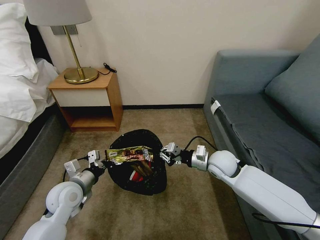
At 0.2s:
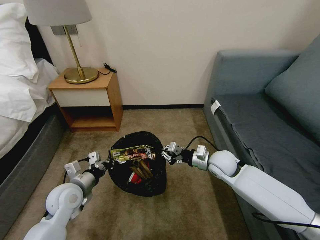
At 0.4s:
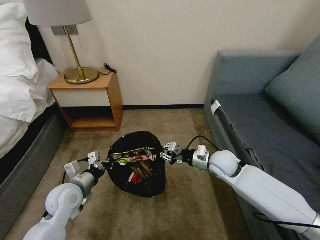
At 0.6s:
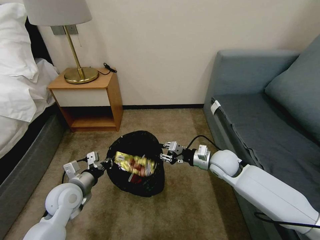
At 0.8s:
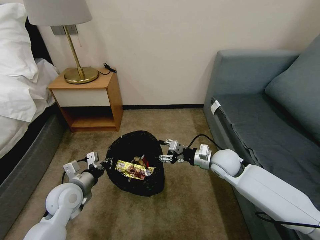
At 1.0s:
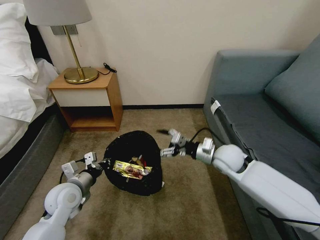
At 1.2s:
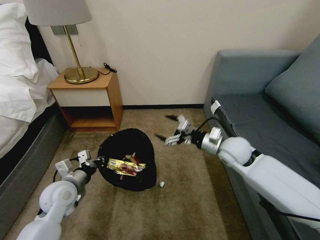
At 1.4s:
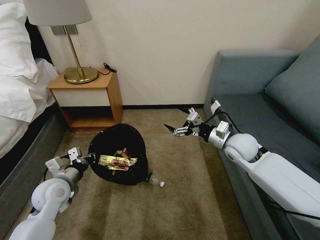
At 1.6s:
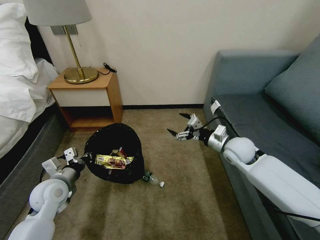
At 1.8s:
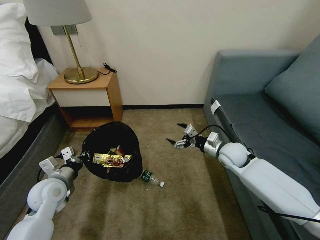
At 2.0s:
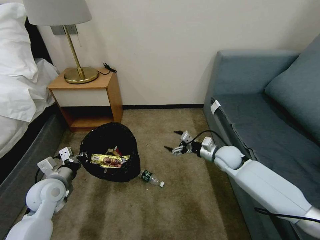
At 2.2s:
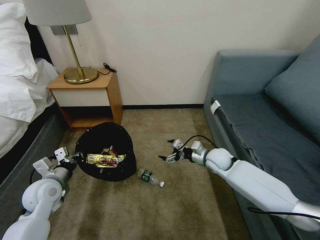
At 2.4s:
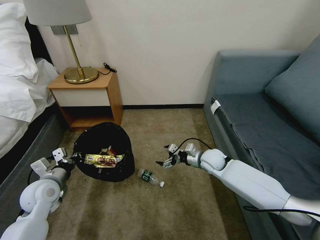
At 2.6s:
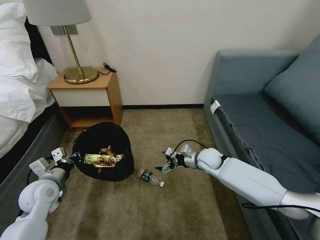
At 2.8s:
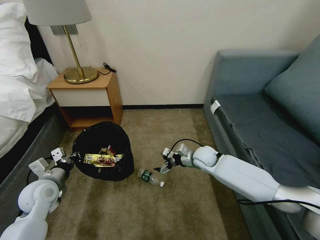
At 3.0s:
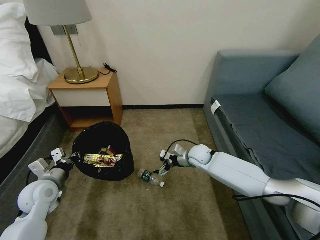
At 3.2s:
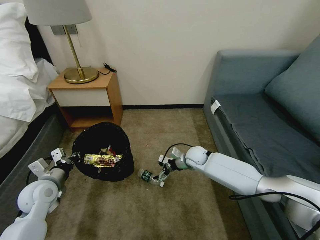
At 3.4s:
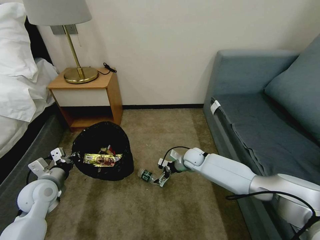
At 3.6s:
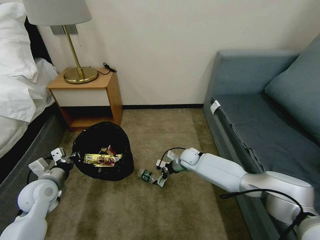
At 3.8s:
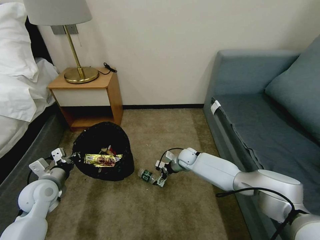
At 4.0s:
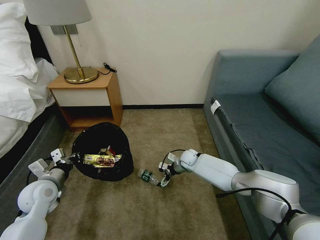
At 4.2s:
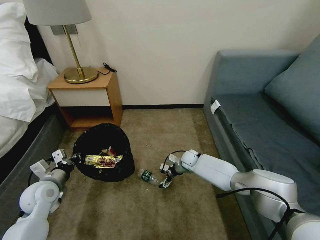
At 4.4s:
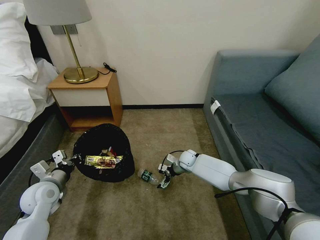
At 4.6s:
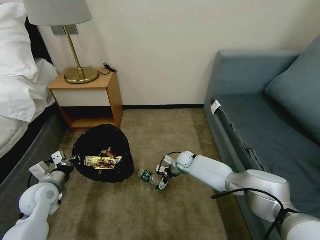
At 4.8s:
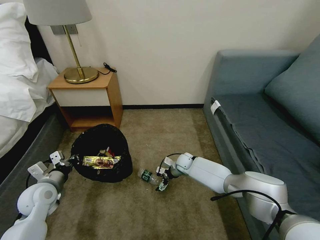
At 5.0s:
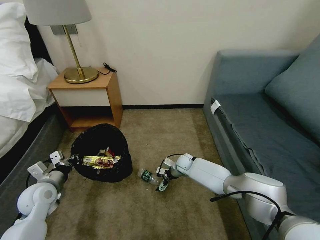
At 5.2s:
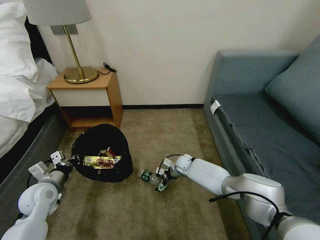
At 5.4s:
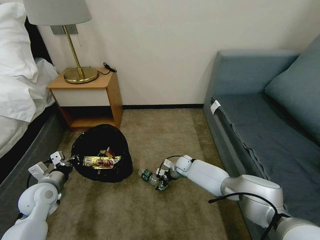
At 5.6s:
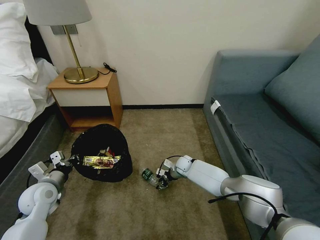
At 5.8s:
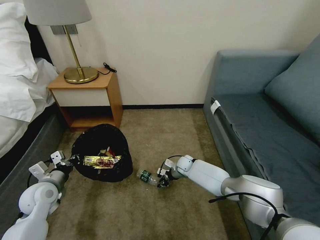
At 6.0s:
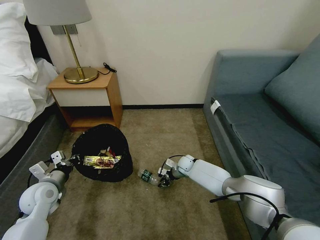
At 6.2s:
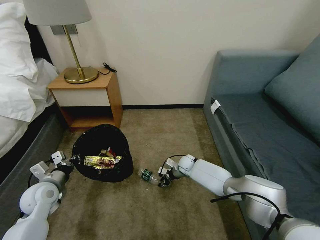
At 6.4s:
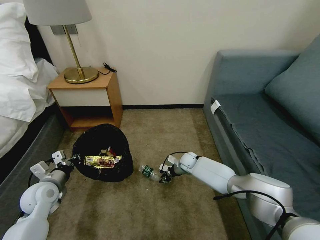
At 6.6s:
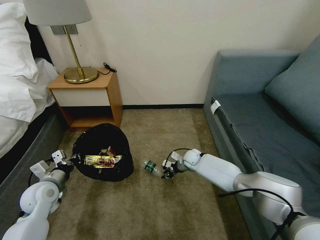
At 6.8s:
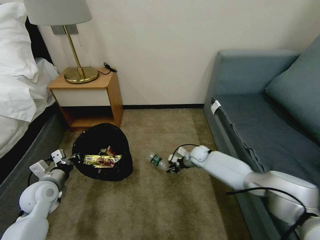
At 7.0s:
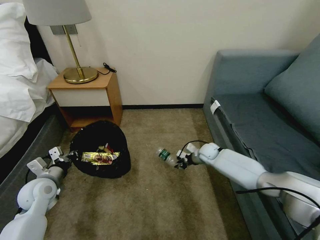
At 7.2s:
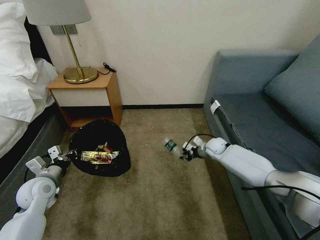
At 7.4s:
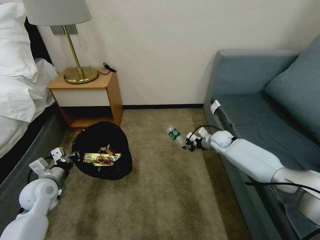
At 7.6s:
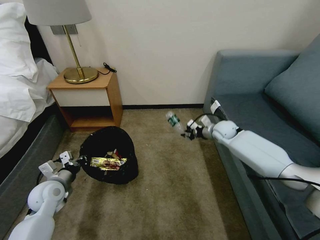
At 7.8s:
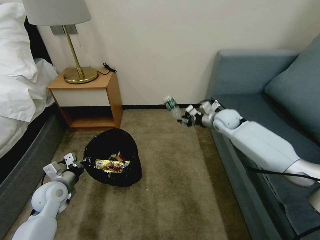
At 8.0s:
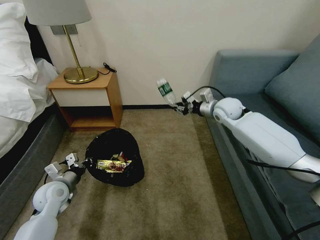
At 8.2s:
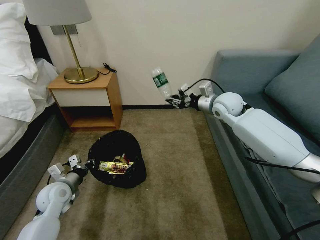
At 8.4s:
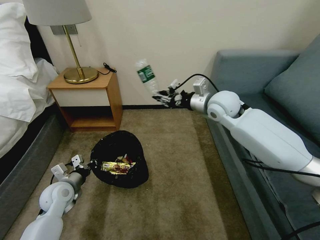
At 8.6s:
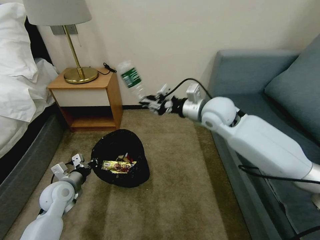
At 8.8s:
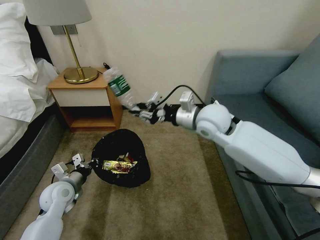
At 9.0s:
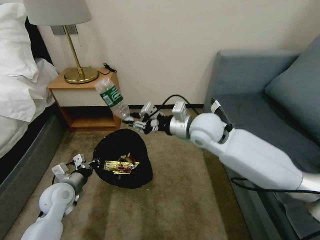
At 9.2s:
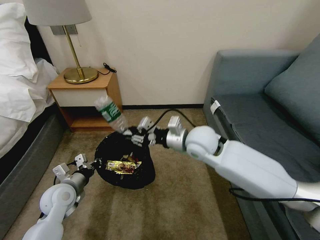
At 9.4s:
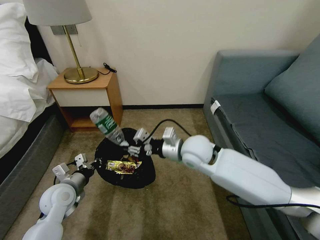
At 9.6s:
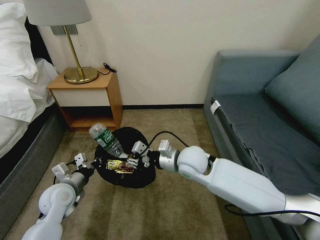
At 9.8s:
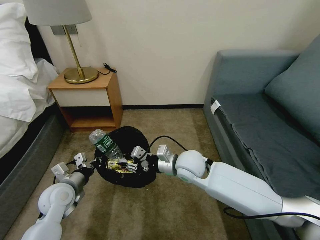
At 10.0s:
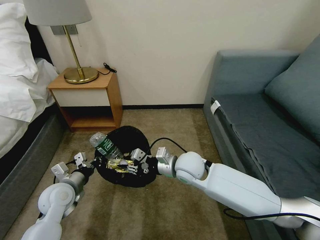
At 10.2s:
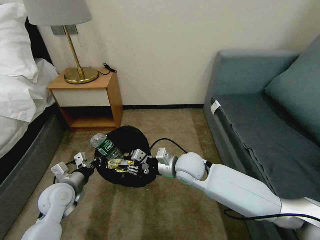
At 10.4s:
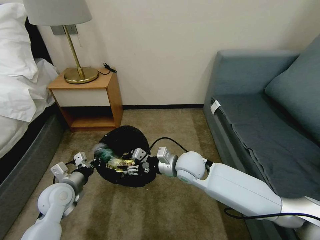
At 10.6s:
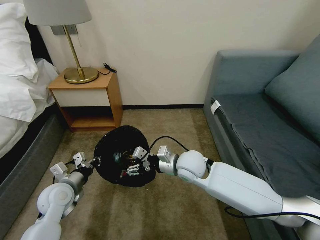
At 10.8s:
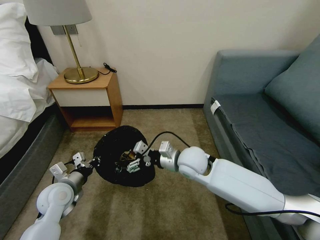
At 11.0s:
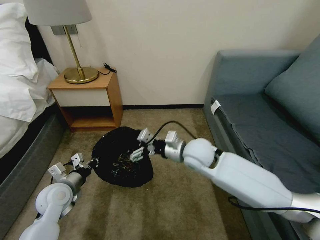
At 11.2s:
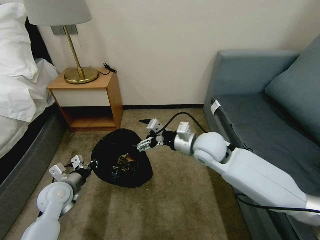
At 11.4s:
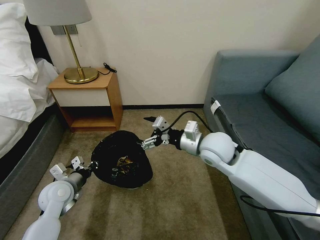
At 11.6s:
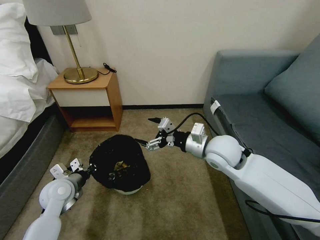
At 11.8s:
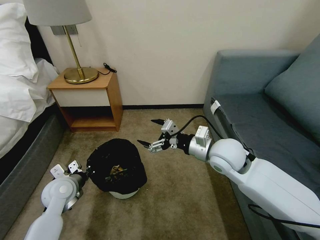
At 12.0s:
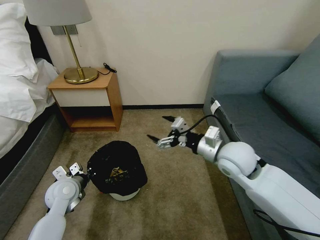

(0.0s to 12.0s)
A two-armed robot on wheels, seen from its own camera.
Task of the whole recording: Pick up the trash bin, then pick up the garbage on the floor and place it into the trash bin.
0.0s - 1.6s: The right gripper moves to the right, about 5 cm, and opens up.
1.6s - 3.0s: The right gripper travels downward, to the left and forward by about 15 cm.
3.0s - 4.4s: The right gripper is displaced downward by some 10 cm.
4.4s - 6.0s: The right gripper closes.
6.0s - 7.6s: The right gripper is displaced upward and to the right by roughly 25 cm.
7.6s - 9.0s: The right gripper moves to the left, upward and backward, approximately 25 cm.
9.0s - 10.4s: The right gripper goes some 15 cm downward.
10.4s - 12.0s: The right gripper moves to the right and upward, some 15 cm, and opens up.

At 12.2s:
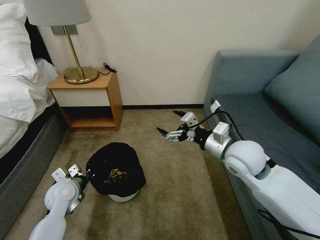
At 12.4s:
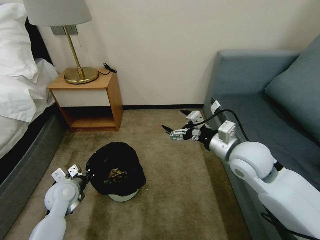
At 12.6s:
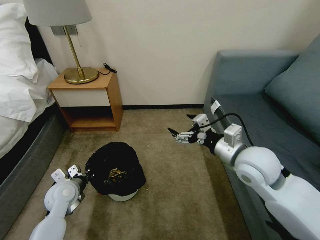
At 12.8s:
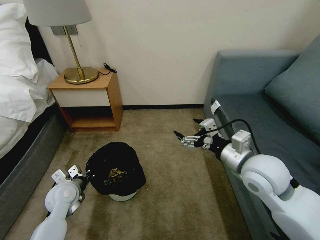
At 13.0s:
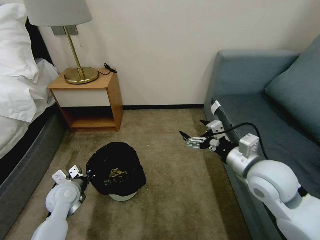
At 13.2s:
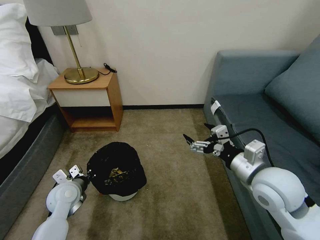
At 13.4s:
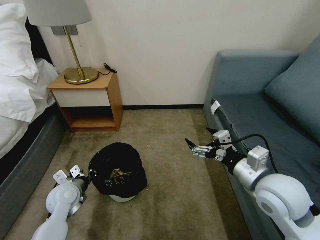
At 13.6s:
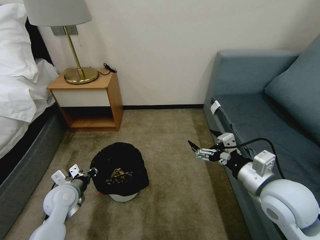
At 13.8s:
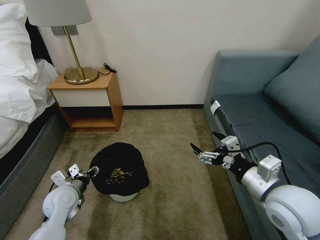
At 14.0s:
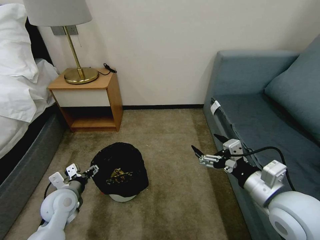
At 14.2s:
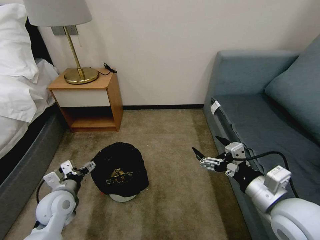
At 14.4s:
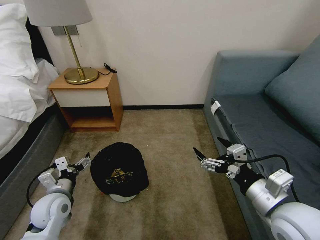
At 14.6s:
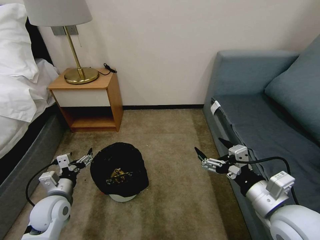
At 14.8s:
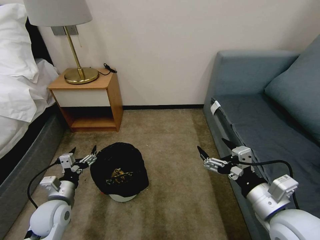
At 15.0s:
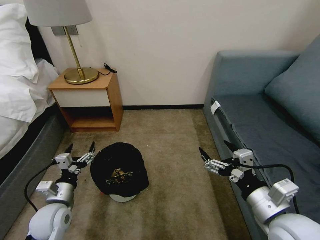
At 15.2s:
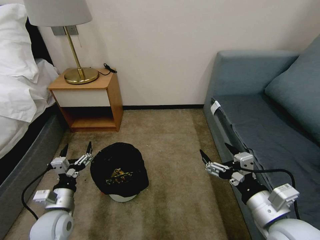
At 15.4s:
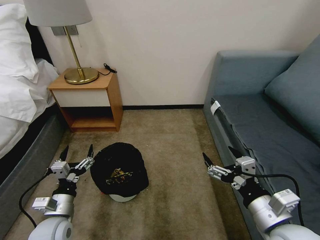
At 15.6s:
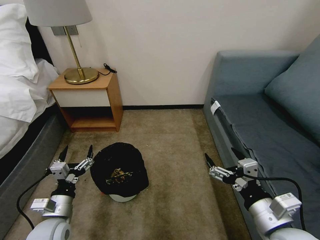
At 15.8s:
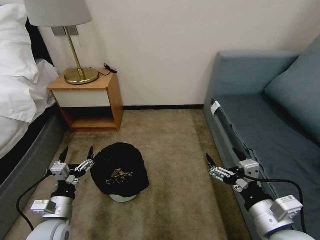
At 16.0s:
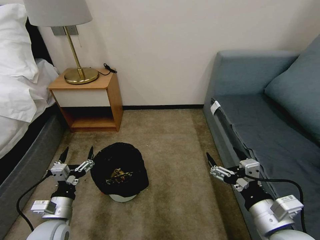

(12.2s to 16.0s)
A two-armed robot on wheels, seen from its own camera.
Task of the whole recording: Pick up the trash bin, then pick up the garbage on the floor and place it into the trash bin.
12.2s - 13.4s: The right gripper heads backward, covering roughly 10 cm.
13.4s - 14.8s: The two grippers go about 5 cm backward. The left gripper opens up.
14.8s - 16.0s: The left gripper travels backward by approximately 5 cm.

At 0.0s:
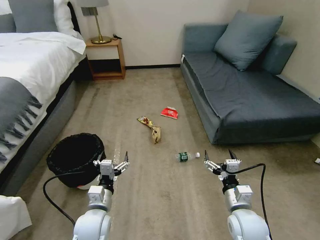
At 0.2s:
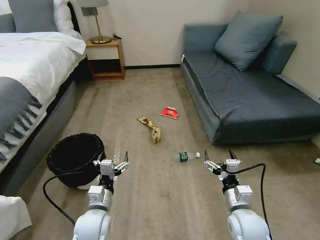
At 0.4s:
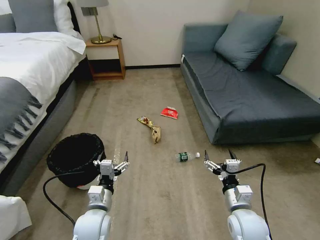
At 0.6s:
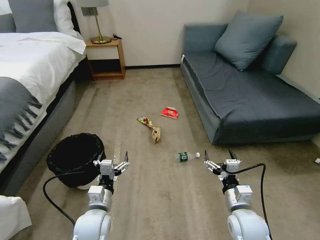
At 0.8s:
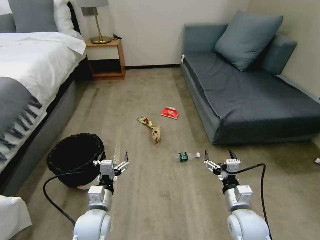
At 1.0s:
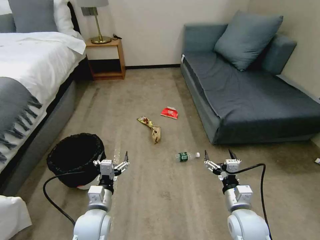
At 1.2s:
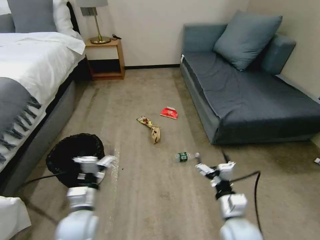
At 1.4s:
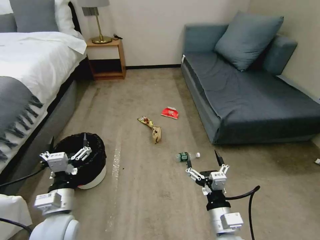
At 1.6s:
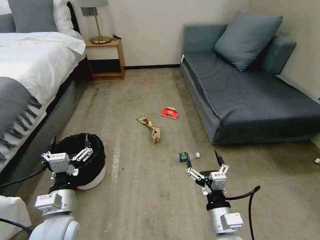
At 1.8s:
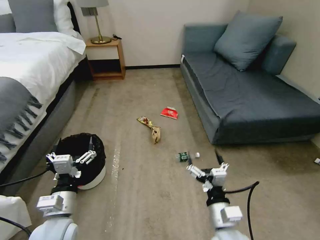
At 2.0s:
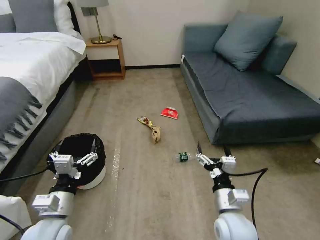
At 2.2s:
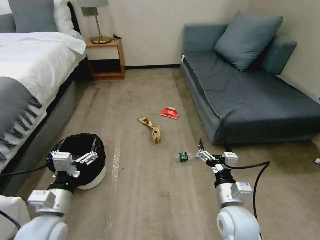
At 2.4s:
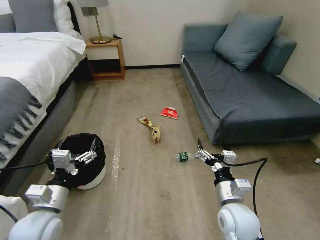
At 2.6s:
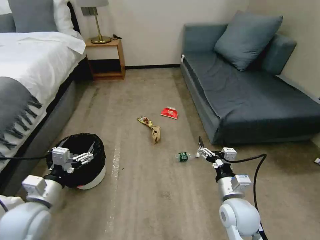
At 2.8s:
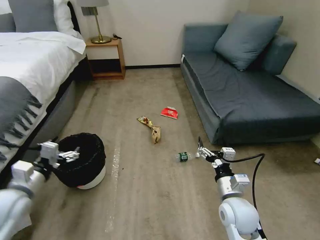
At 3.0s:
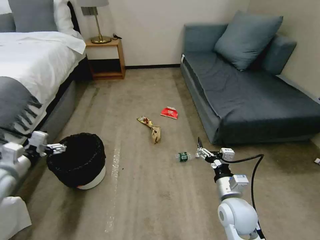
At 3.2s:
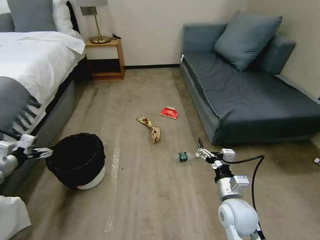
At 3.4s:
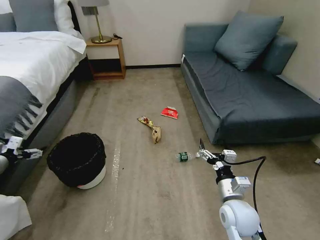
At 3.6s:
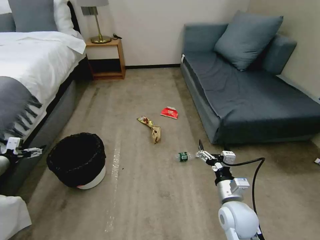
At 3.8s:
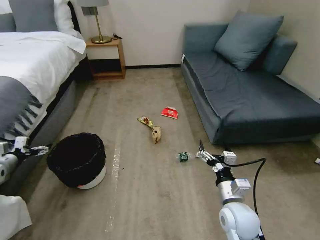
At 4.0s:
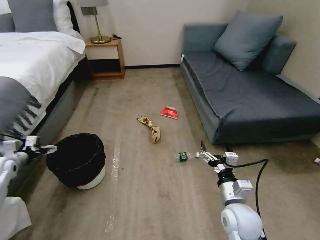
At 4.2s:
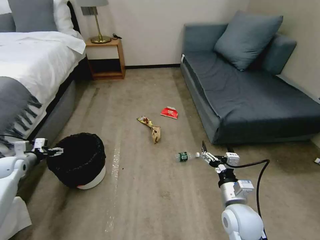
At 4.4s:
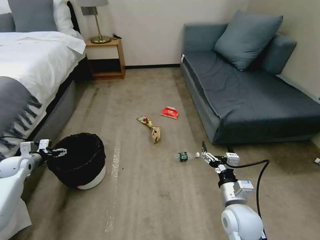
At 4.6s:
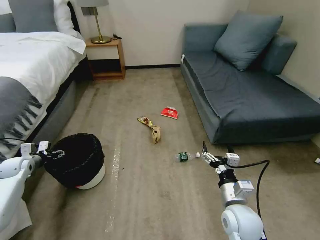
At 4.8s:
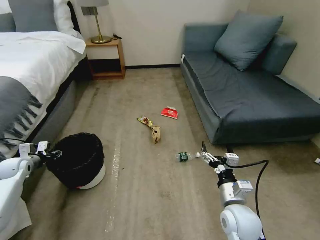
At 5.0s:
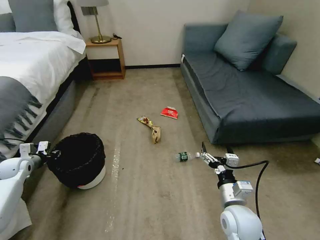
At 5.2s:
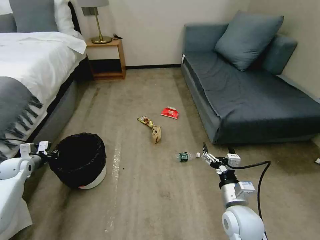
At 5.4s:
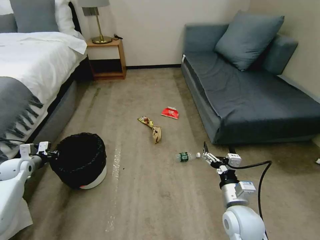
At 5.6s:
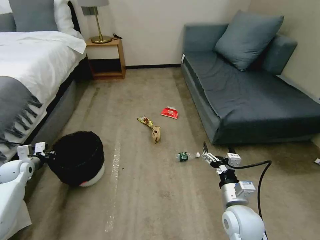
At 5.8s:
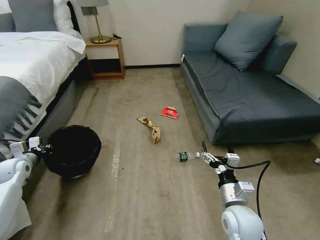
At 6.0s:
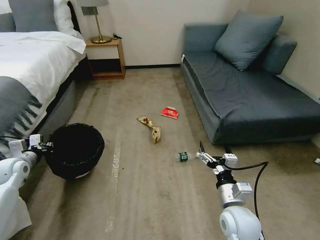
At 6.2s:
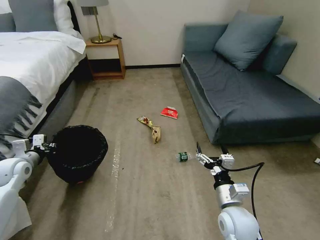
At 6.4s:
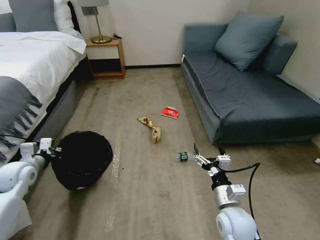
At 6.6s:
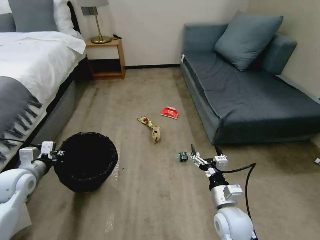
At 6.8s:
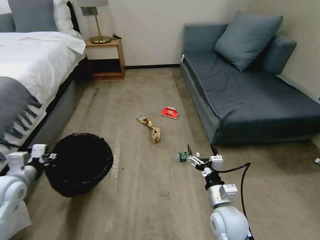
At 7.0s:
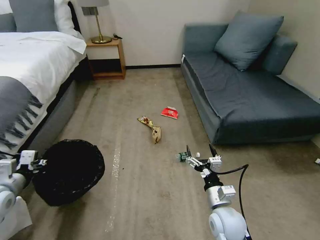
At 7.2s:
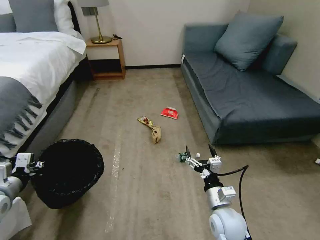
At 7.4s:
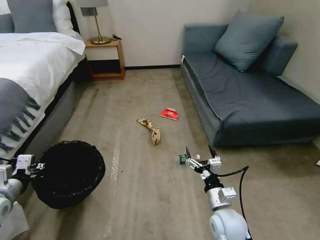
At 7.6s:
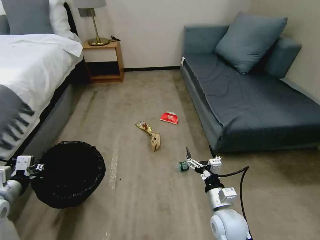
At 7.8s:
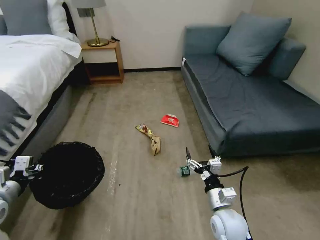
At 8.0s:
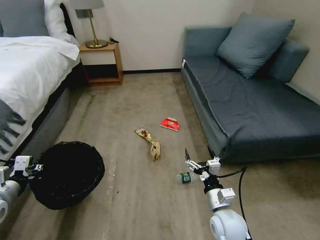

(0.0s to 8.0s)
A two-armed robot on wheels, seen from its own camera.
Task of the whole recording: Pick up the trash bin, then pick up the garbage on the floor and place it into the trash bin.
1.6s - 3.2s: The right gripper shifts roughly 10 cm forward and to the right, while the left gripper shifts about 30 cm to the left and forward.
3.2s - 4.8s: The left gripper shifts roughly 15 cm downward and forward, and closes its fingers.
4.8s - 6.4s: The left gripper travels to the right, upward and backward by about 15 cm, and closes.
6.4s - 8.0s: The left gripper heads backward, covering roughly 10 cm.
